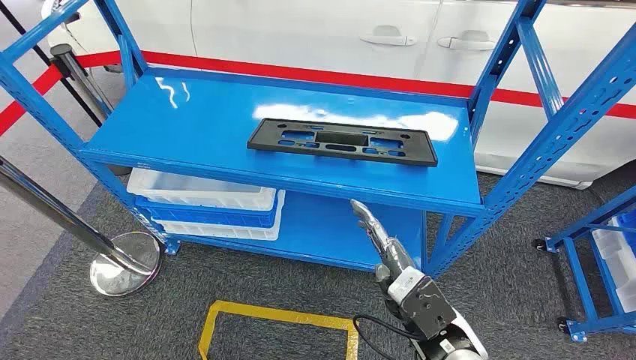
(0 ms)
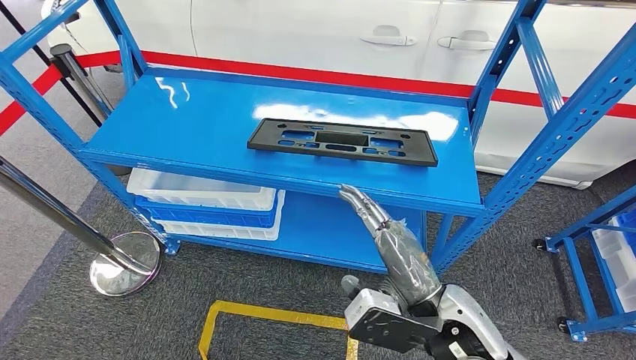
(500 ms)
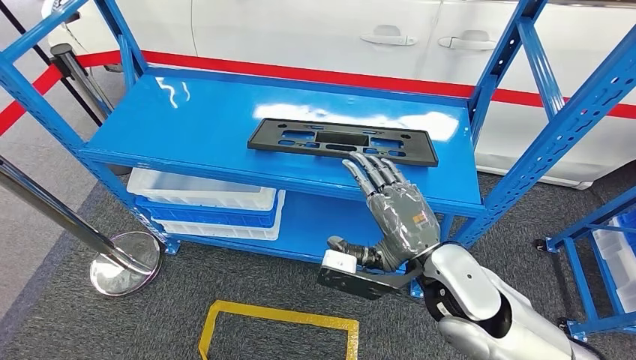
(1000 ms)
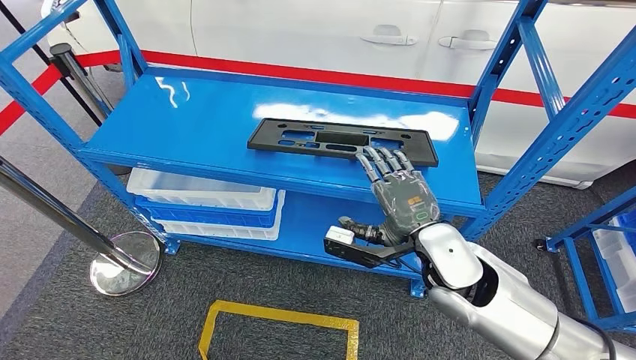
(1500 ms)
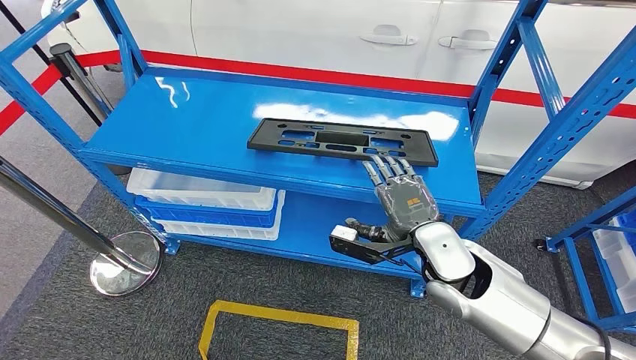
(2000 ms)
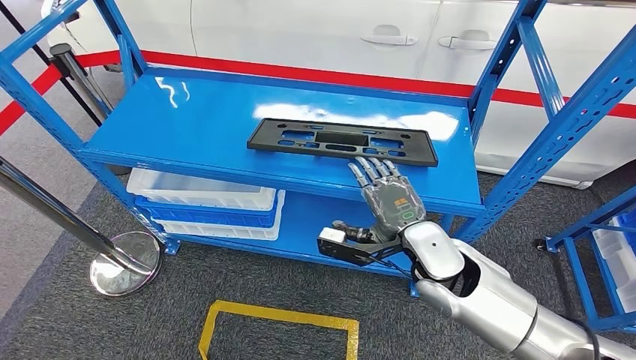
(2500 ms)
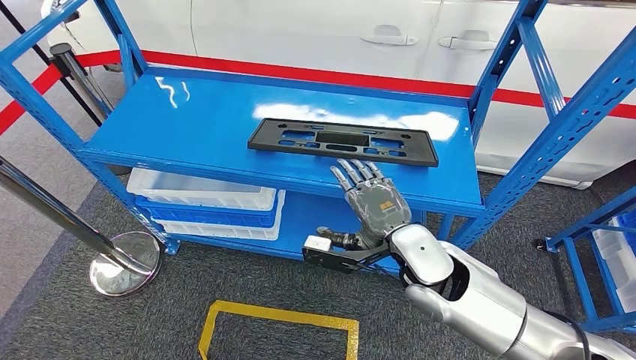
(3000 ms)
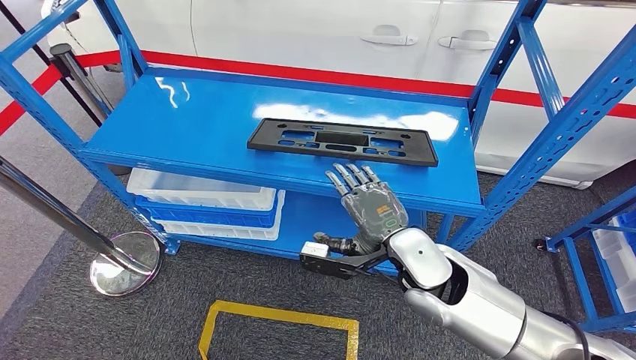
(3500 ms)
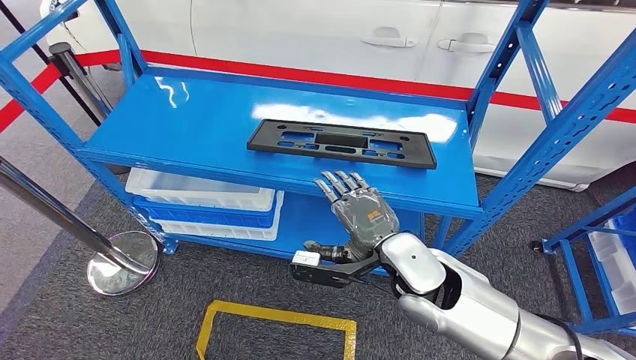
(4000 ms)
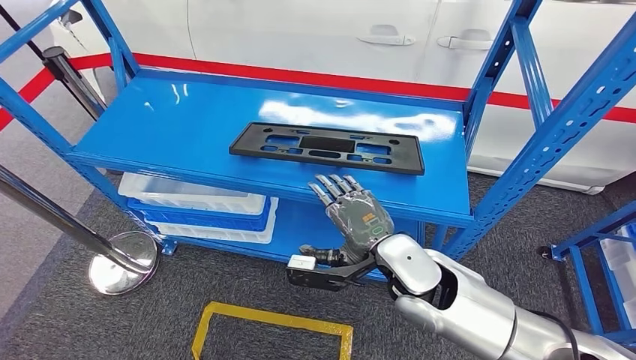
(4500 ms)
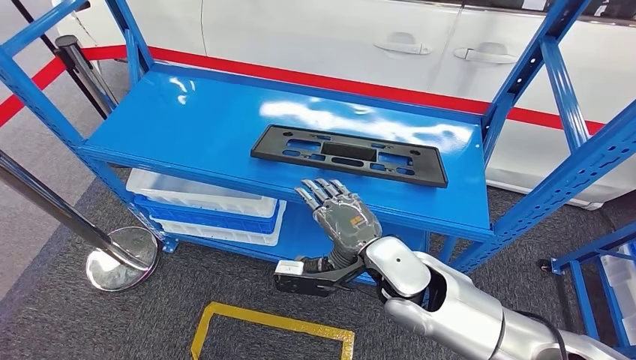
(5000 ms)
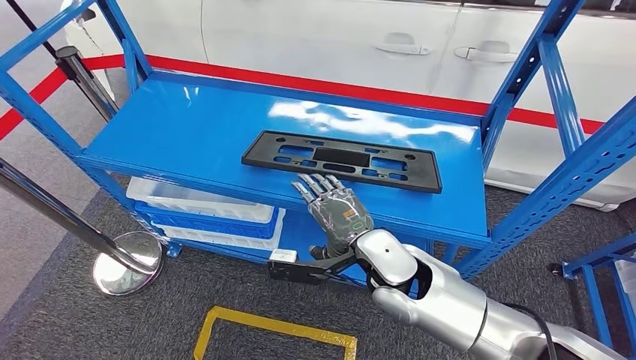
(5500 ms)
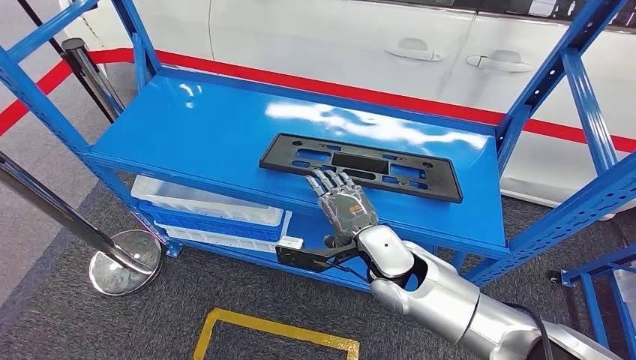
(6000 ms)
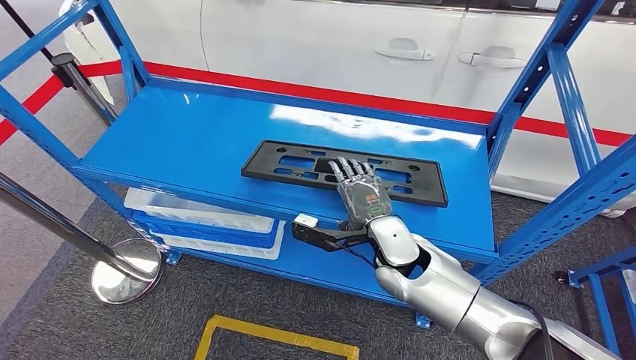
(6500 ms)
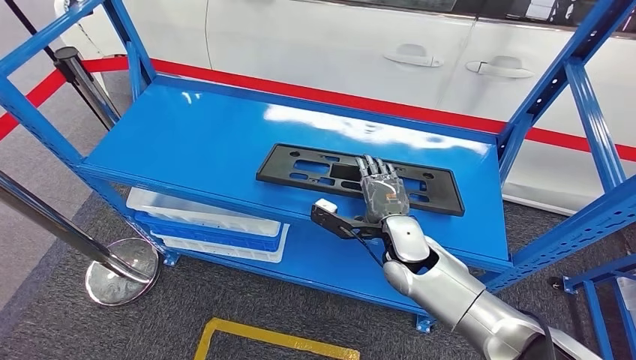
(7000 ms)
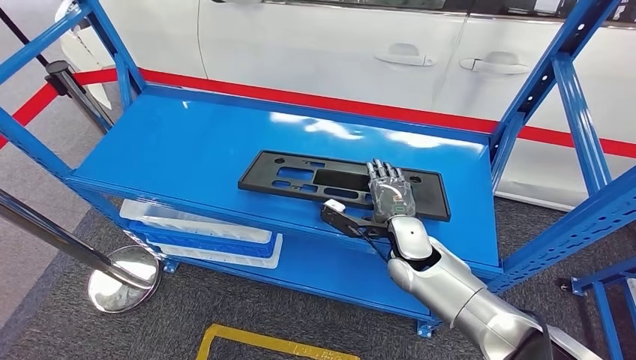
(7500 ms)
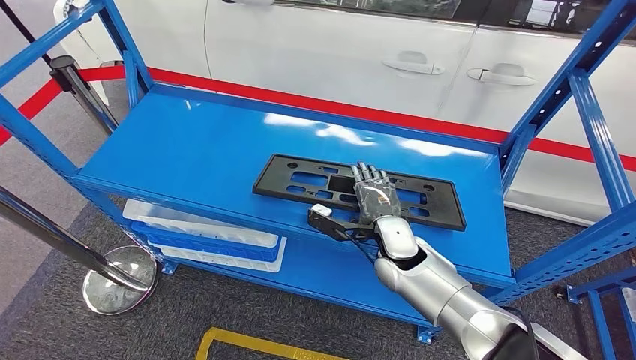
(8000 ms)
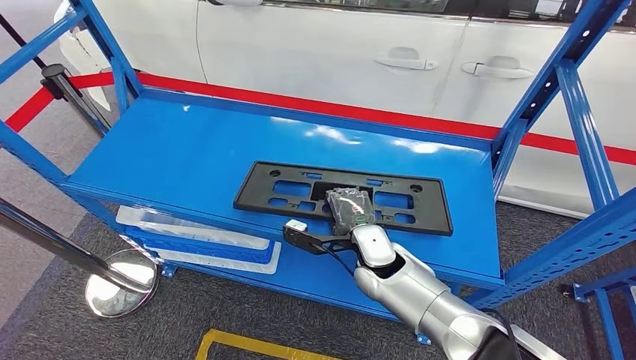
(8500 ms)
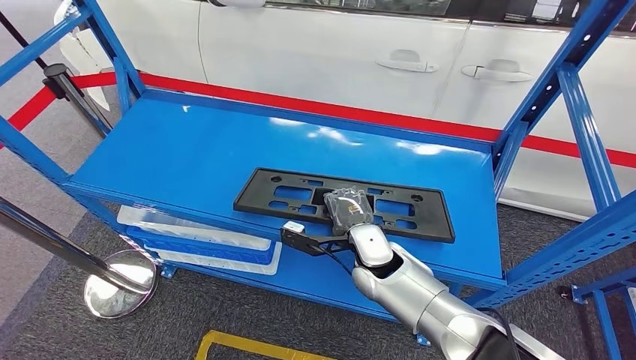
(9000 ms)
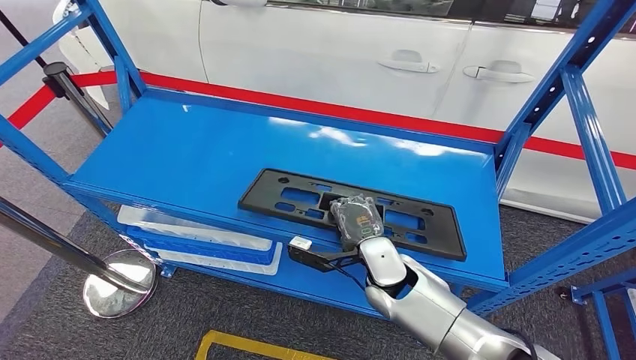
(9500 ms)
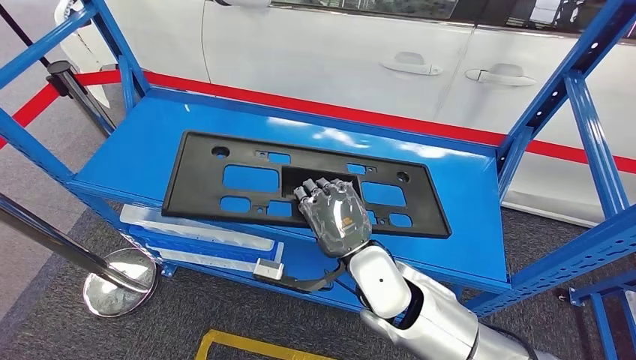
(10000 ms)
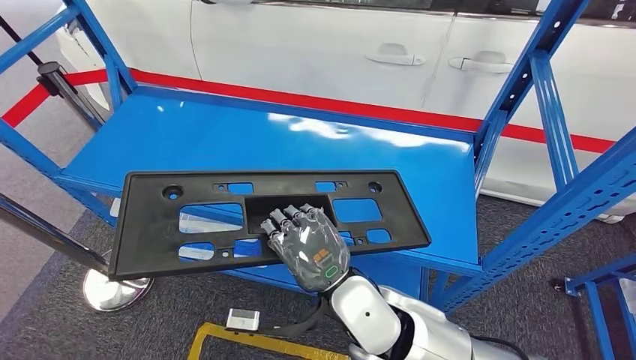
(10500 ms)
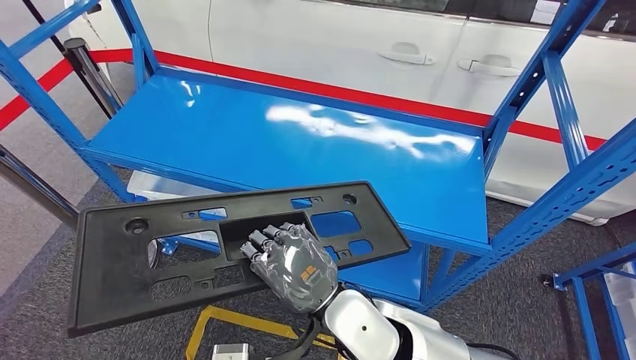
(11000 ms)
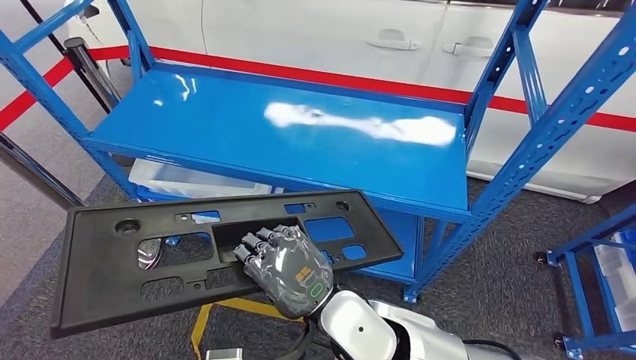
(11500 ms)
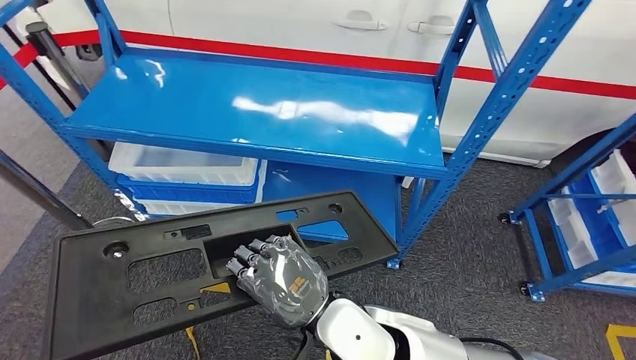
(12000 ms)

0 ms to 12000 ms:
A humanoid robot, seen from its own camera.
Step, 0 ms to 10000 ms: Pick up the large material from the shelf.
2000 ms to 4000 ms: The right hand is displaced to the left by approximately 5 cm.

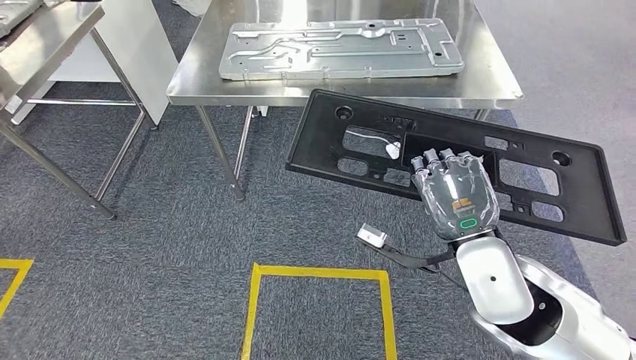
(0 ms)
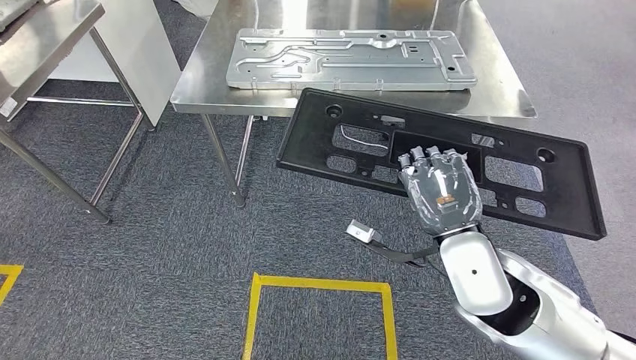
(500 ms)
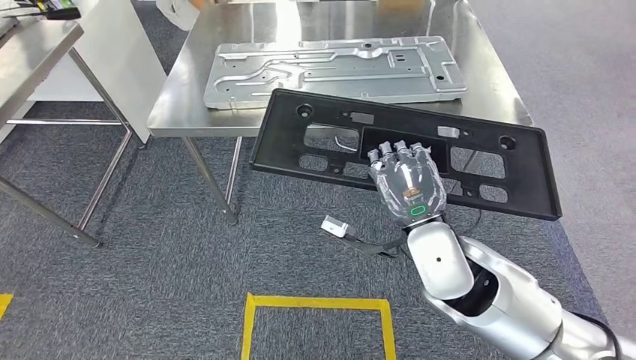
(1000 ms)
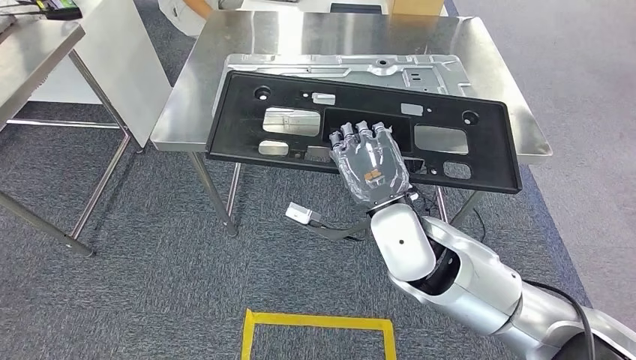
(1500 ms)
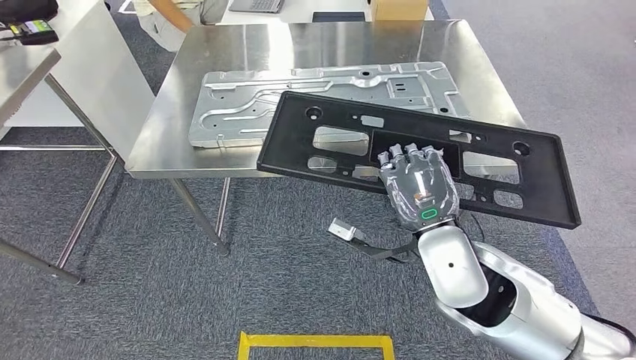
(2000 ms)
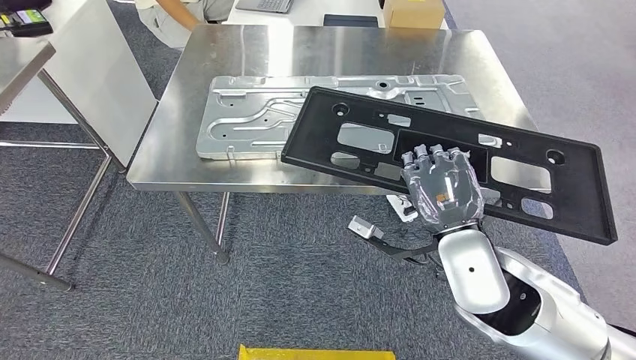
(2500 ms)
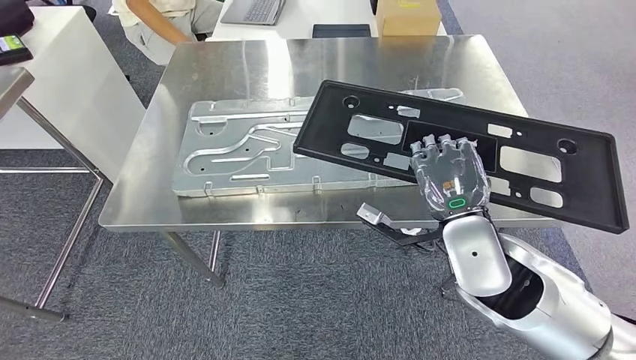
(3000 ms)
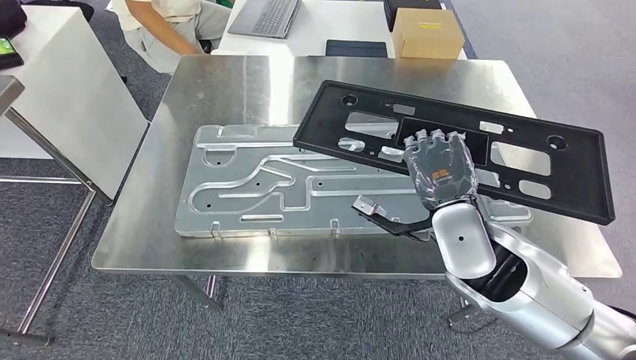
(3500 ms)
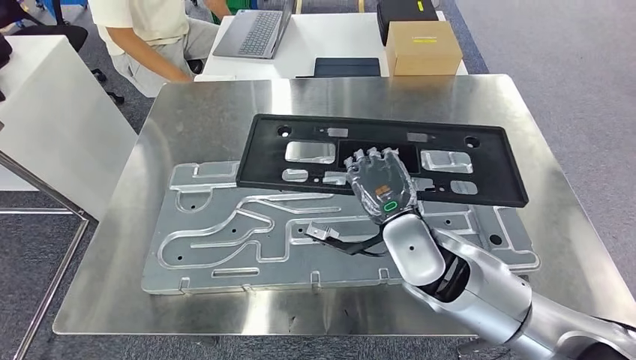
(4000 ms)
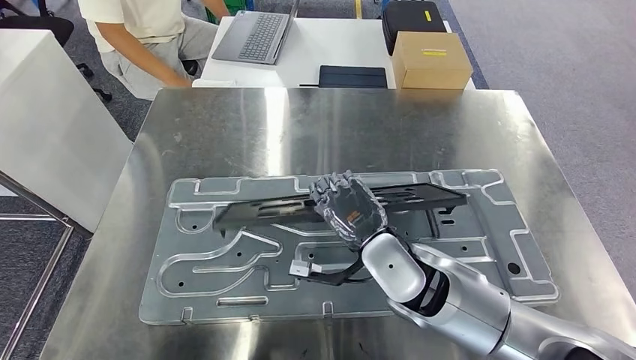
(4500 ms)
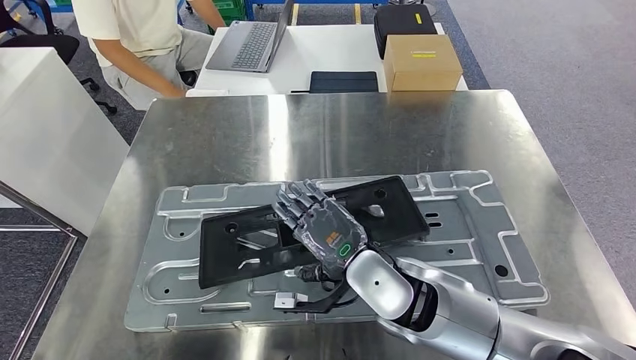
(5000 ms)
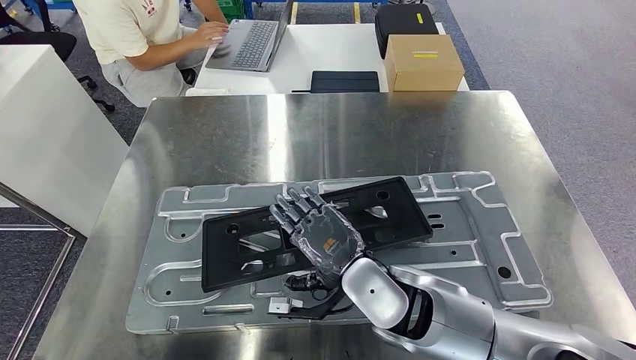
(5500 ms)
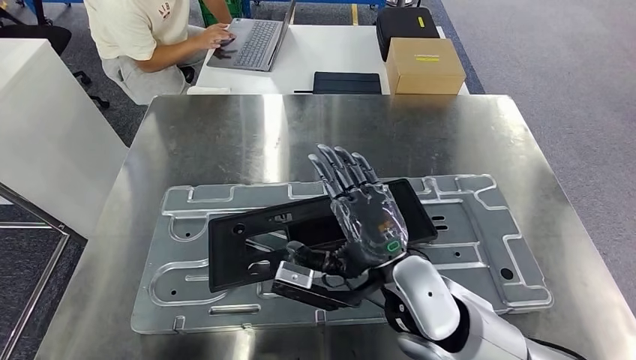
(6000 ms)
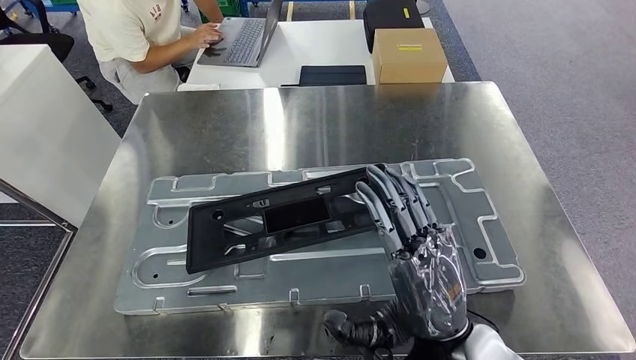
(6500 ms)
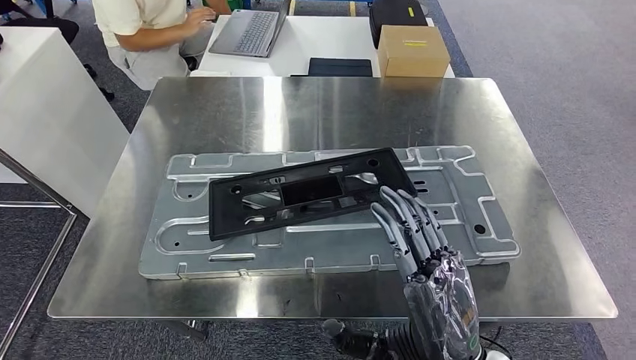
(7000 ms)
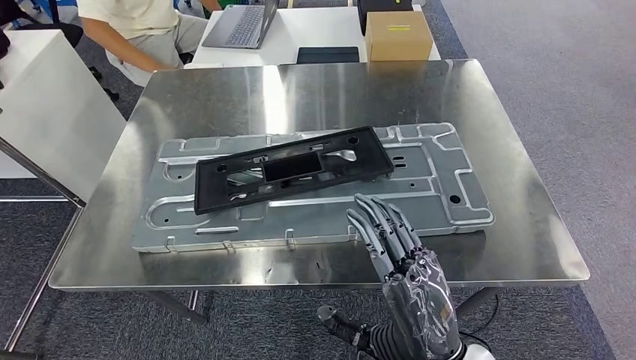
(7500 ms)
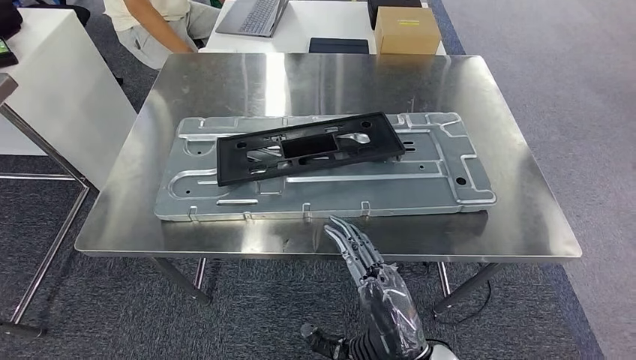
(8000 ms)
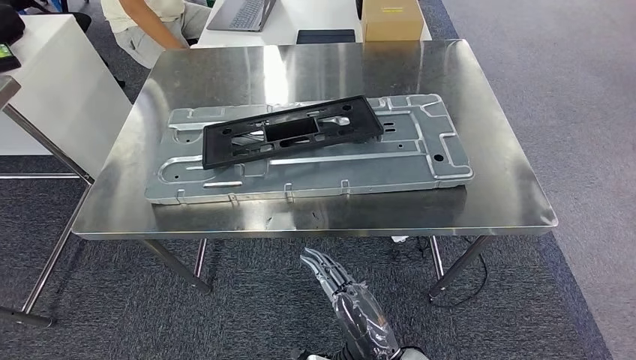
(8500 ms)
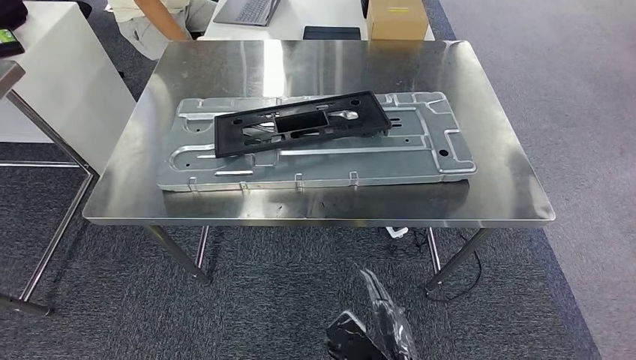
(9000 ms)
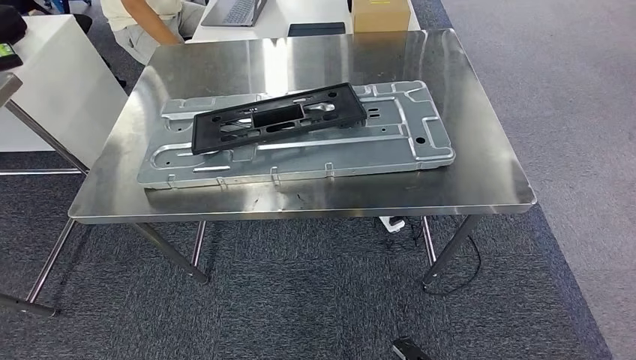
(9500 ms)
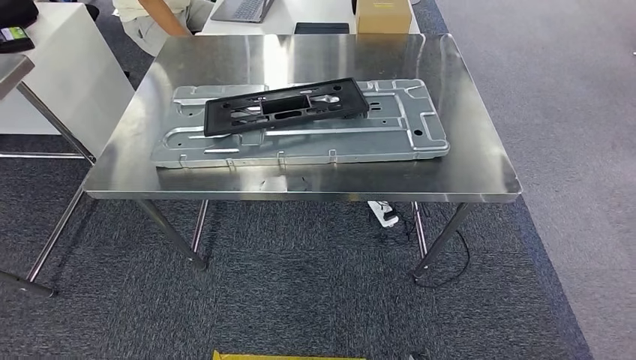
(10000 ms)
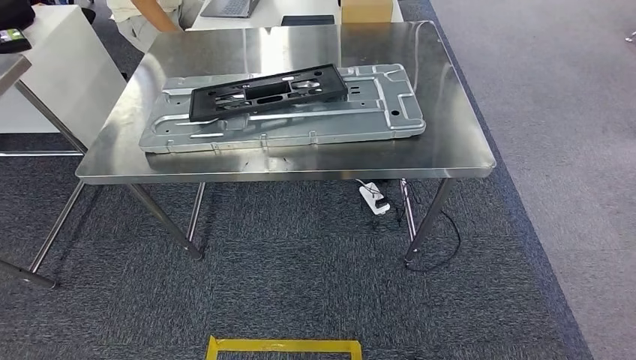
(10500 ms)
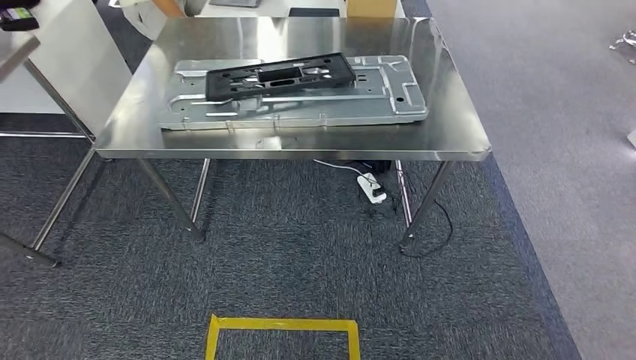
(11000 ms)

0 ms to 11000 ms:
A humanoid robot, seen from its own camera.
Step, 0 ms to 3500 ms: Move the large material to the workbench.
Step, 5500 ms to 8000 ms: Insert the large material into the corresponding slot on the workbench.
